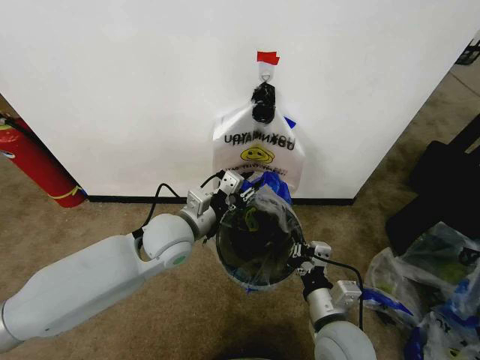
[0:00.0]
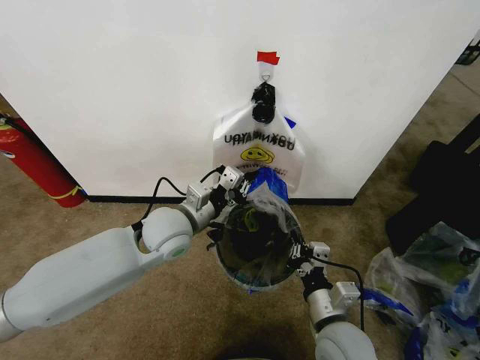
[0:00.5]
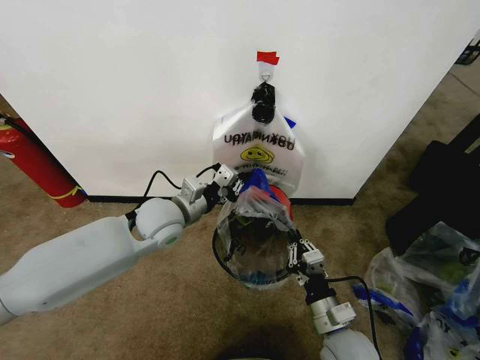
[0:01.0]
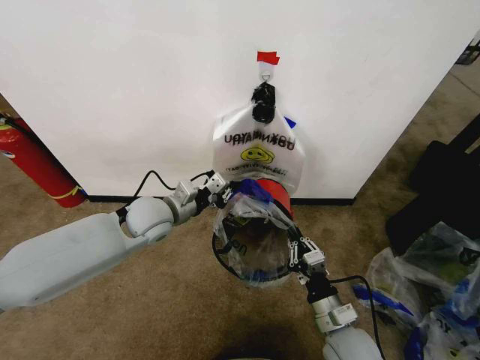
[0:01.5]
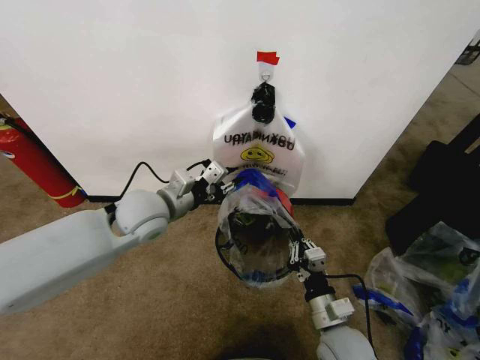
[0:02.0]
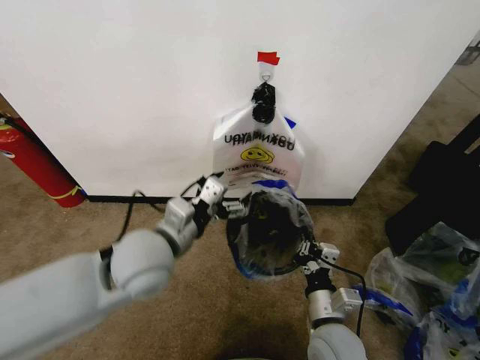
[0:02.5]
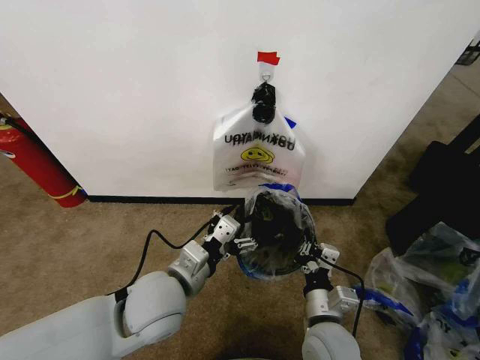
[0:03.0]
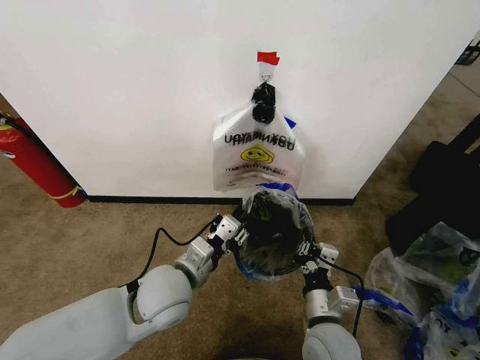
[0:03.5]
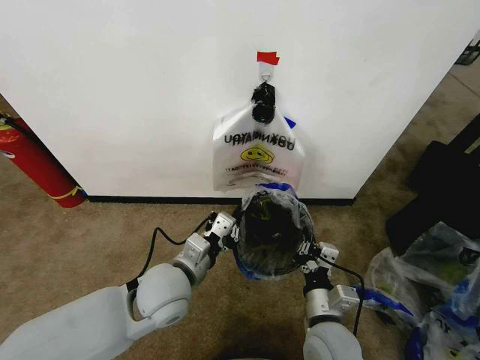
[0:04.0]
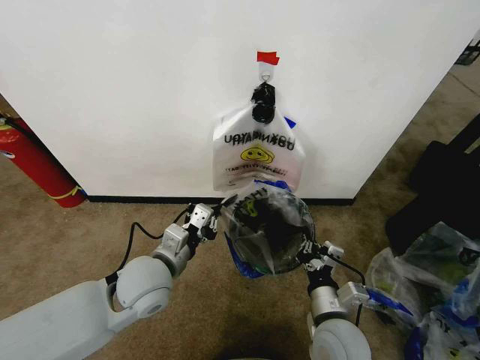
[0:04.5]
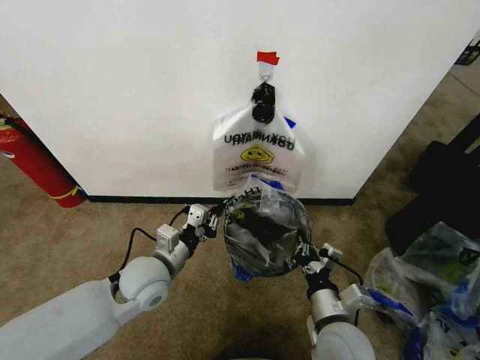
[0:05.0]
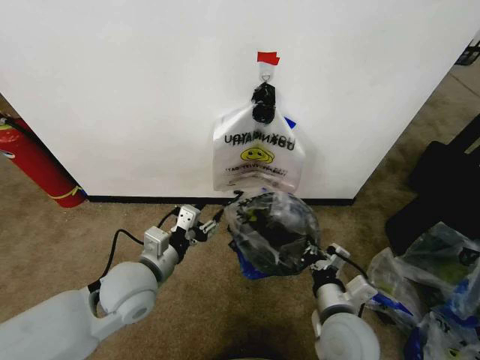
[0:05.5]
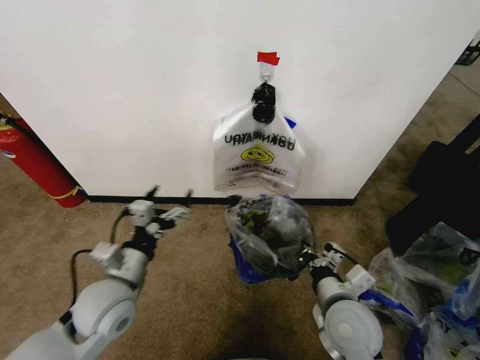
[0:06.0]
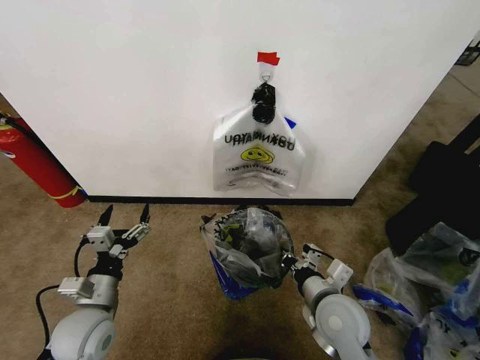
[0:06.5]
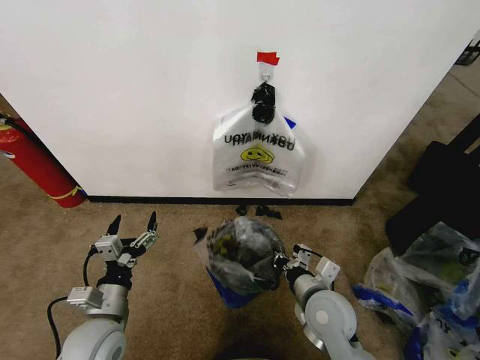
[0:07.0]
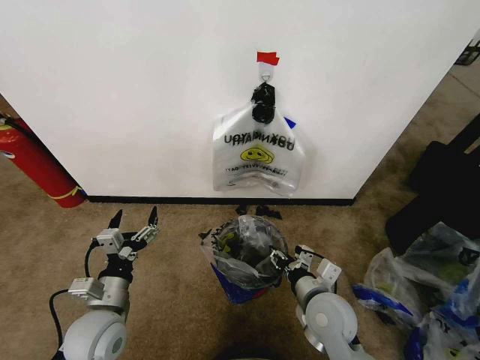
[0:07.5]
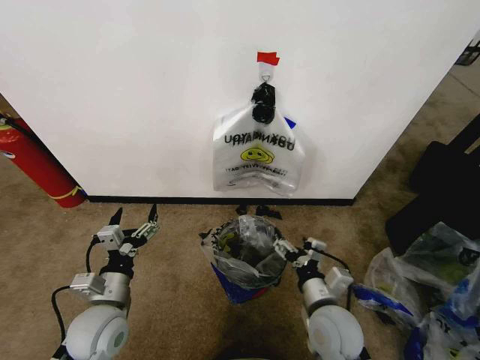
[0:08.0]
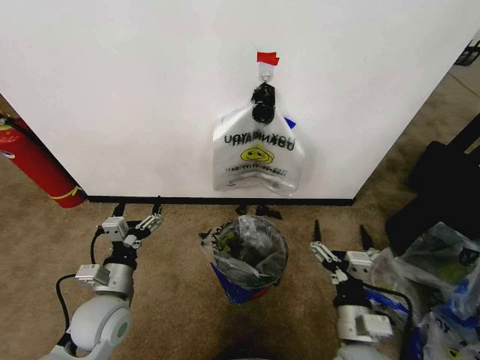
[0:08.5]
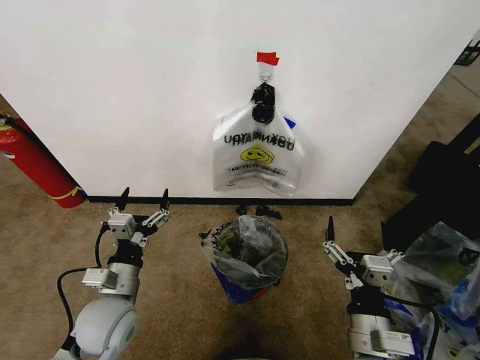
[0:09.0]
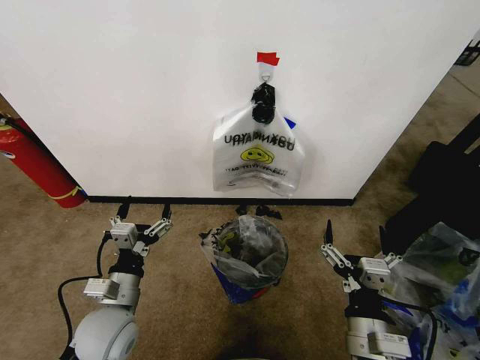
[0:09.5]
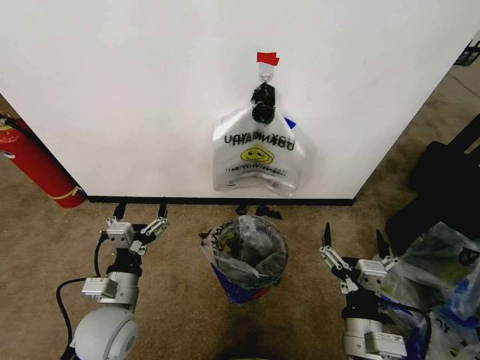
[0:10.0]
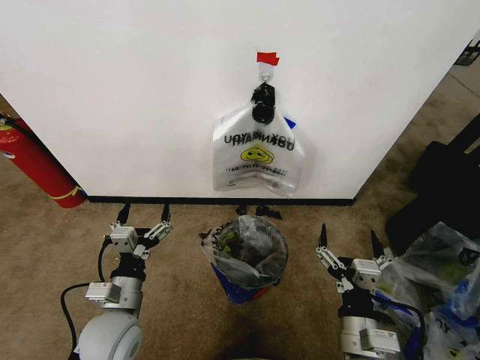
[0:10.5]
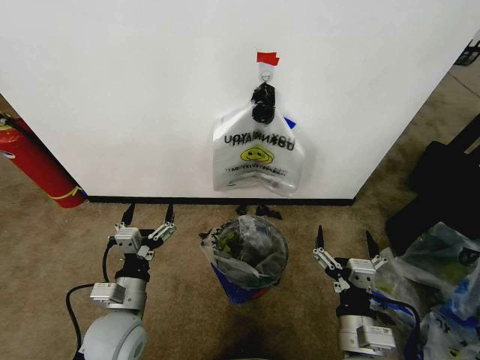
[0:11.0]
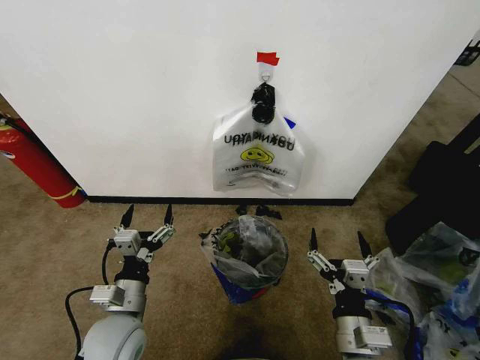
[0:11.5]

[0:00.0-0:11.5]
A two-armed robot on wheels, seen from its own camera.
Task of the whole recording: Pick up the garbage bag from the wall and place it over the trash bin.
0:00.0 to 0:02.0: The left gripper shifts about 5 cm to the left, and closes, then reopens. Meanwhile the right gripper shifts some 5 cm downward.
0:02.0 to 0:04.0: The left gripper shifts about 15 cm backward, downward and to the right, and closes its fingers.
0:04.0 to 0:06.0: The right gripper moves roughly 5 cm, while the left gripper travels to the left by approximately 10 cm, and opens up.
0:06.0 to 0:07.5: The right gripper opens its fingers. The left gripper goes roughly 5 cm downward.
0:07.5 to 0:09.5: The right gripper moves backward, roughly 10 cm, and opens up.
0:09.5 to 0:11.5: There are only small adjustments of the grippers.

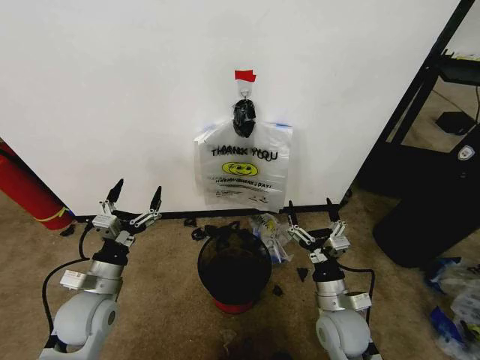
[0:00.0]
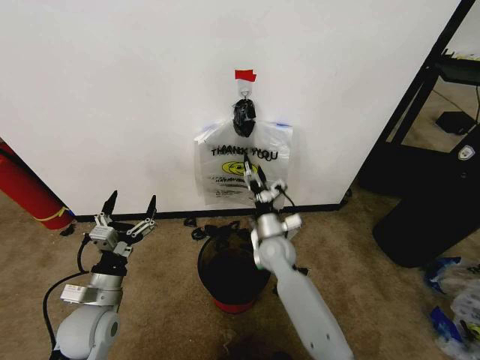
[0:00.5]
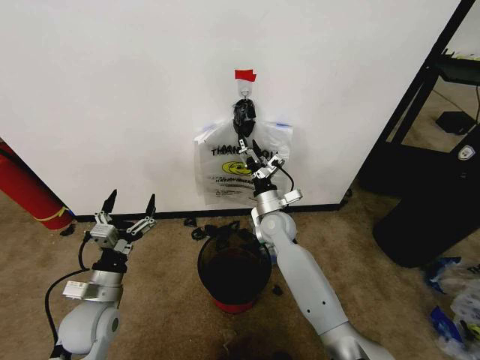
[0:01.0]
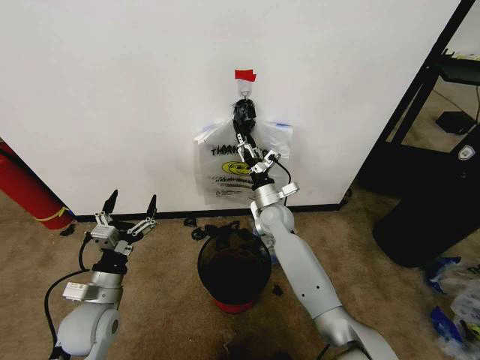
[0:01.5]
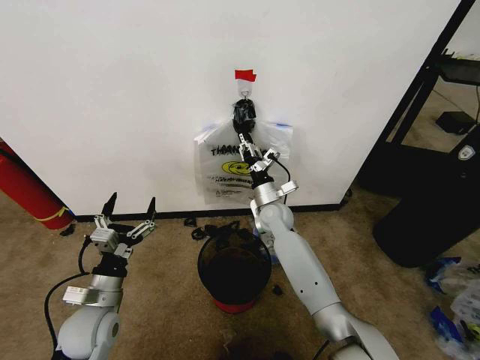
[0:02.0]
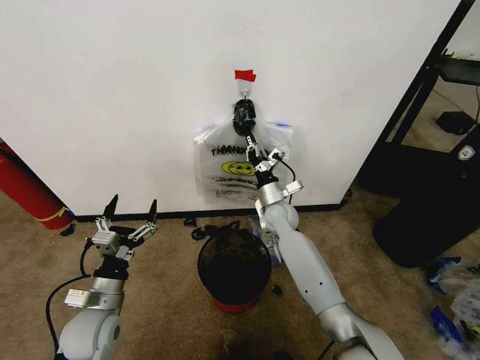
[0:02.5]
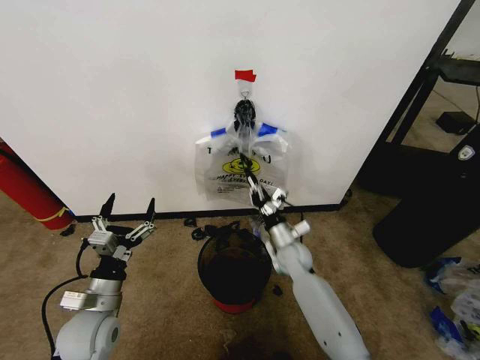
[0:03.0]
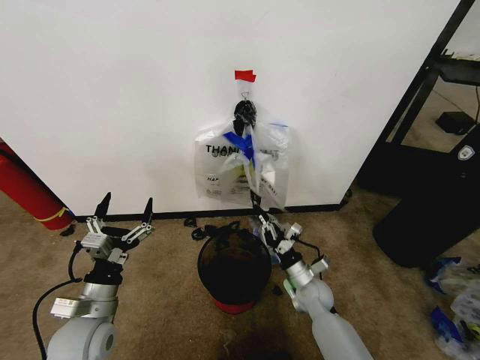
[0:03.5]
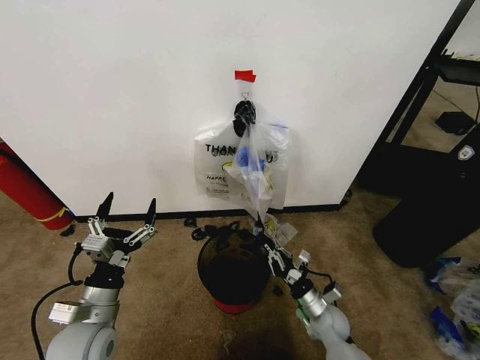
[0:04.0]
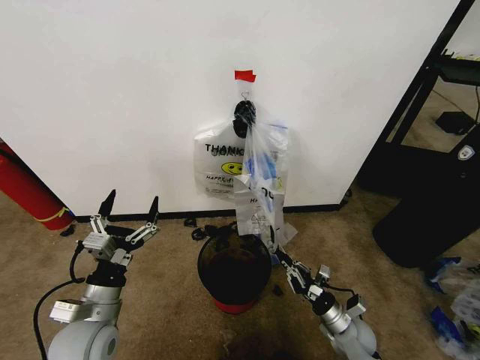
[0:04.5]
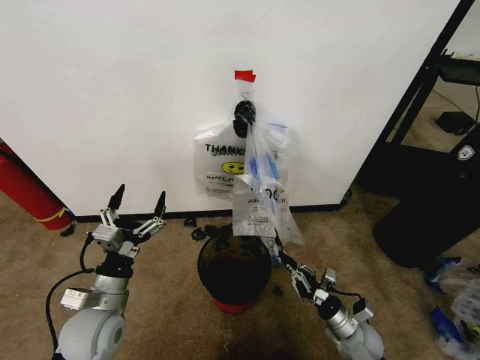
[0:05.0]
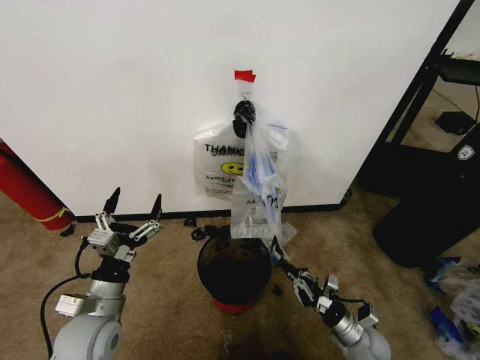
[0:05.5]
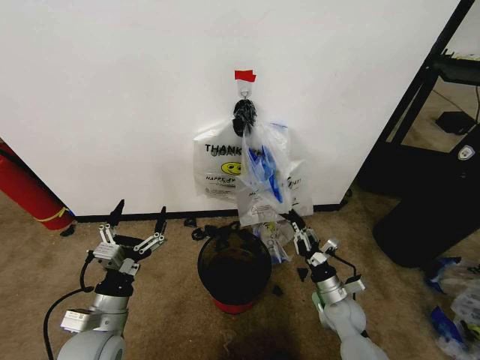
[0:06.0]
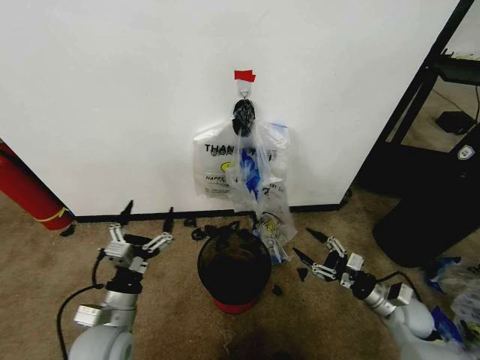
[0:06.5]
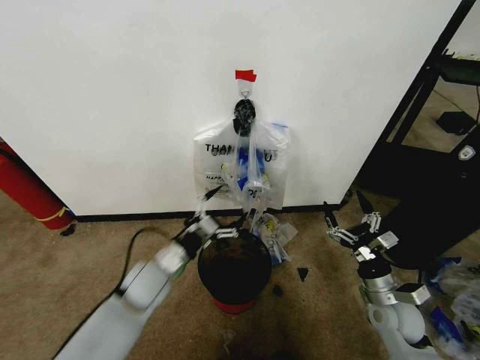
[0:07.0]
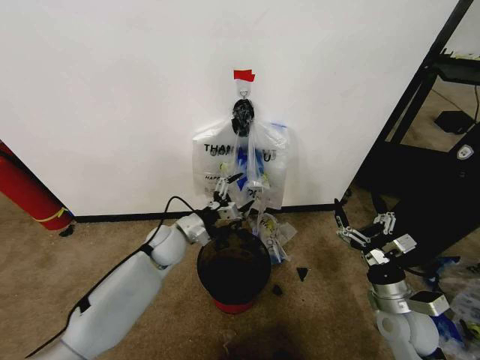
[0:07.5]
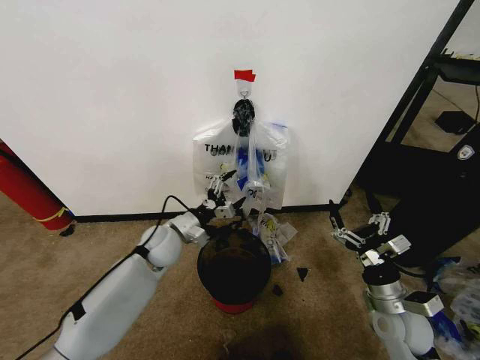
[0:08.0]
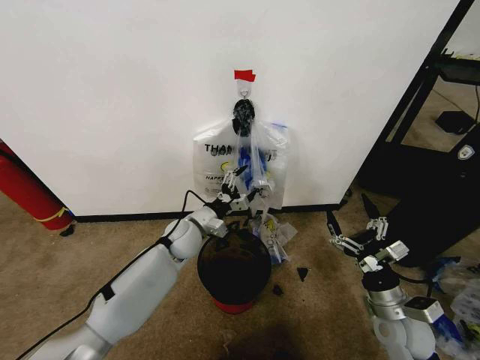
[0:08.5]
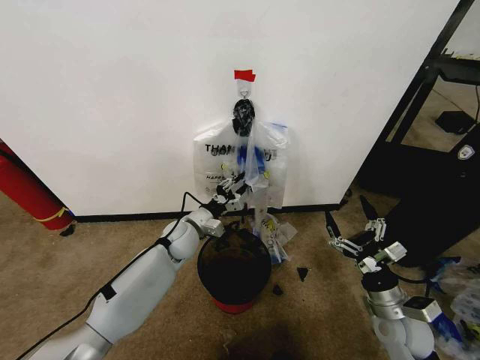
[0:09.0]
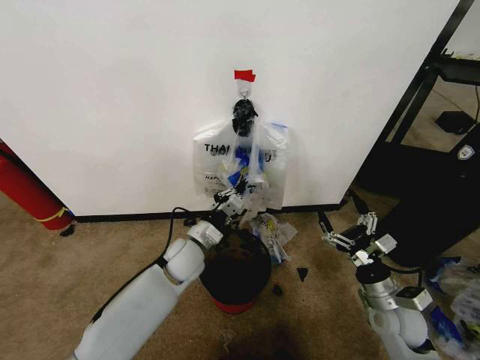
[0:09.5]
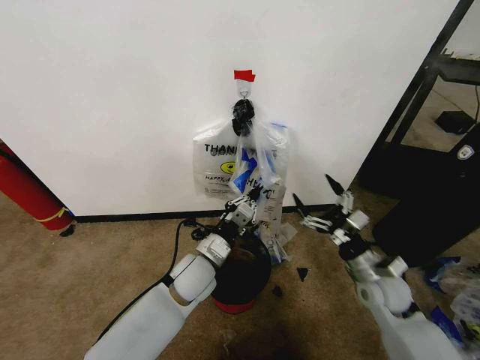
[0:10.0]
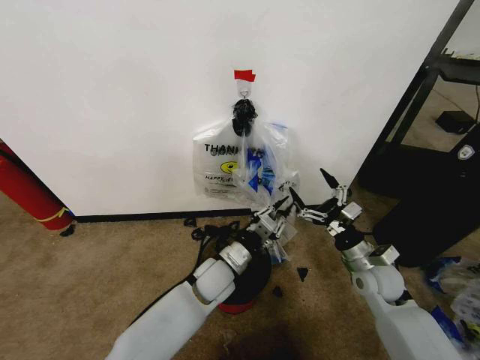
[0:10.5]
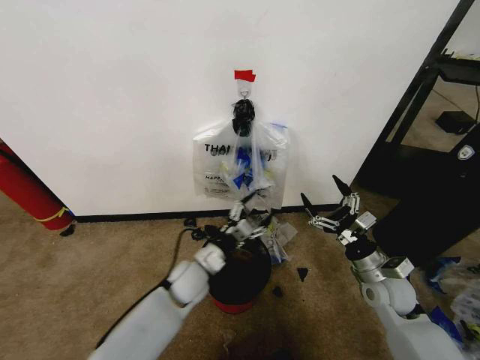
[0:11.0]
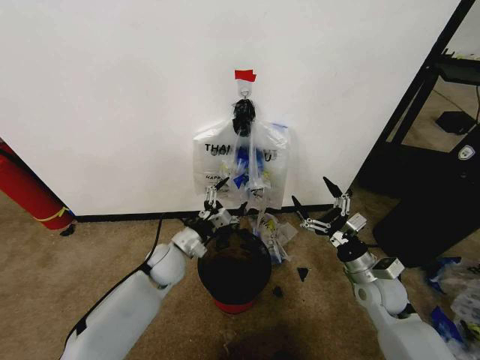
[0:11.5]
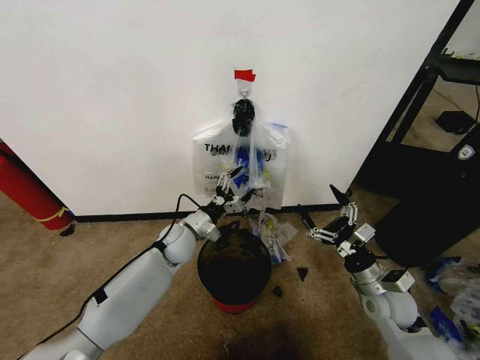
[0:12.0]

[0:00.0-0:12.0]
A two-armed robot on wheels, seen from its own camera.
Task of the whole recording: Pick up the garbage bag from the wall and place it over the trash bin.
0:02.0 to 0:04.0: The right gripper shifts roughly 30 cm backward, downward and to the right, and closes its fingers.
0:06.0 to 0:08.0: The right gripper moves upward, to the right and backward, approximately 15 cm, and opens; the left gripper goes about 20 cm forward.
0:08.0 to 0:10.0: The right gripper shifts some 5 cm forward; the left gripper is displaced to the right and backward by roughly 10 cm, and closes up.
0:10.0 to 0:12.0: The left gripper travels forward and to the left by some 10 cm, and opens up.

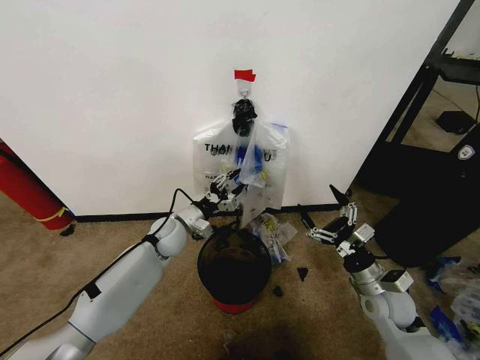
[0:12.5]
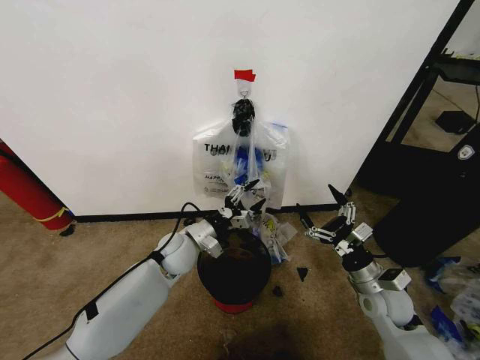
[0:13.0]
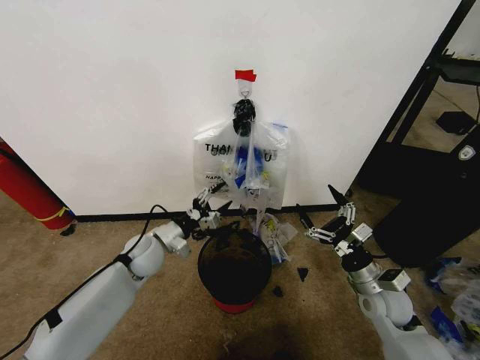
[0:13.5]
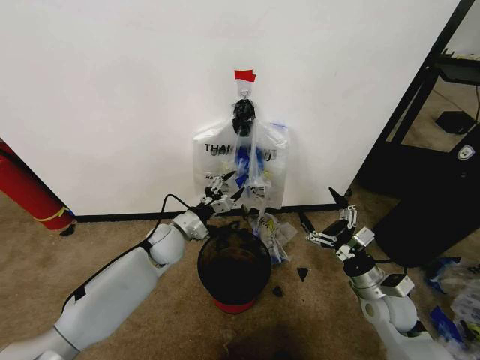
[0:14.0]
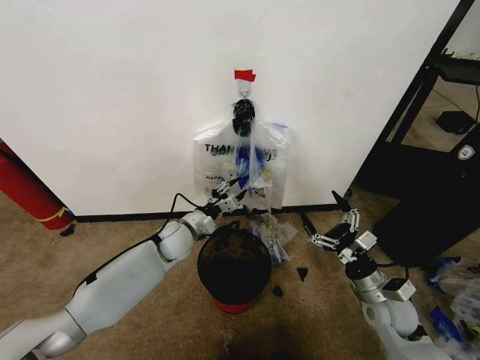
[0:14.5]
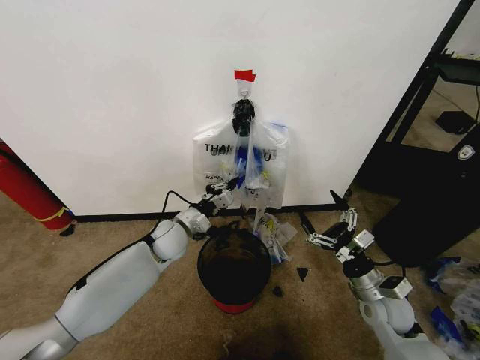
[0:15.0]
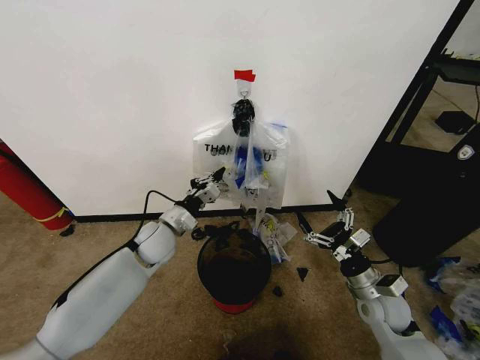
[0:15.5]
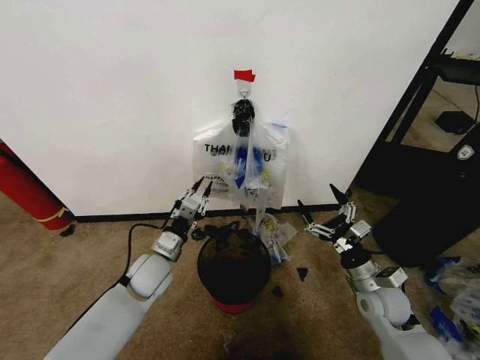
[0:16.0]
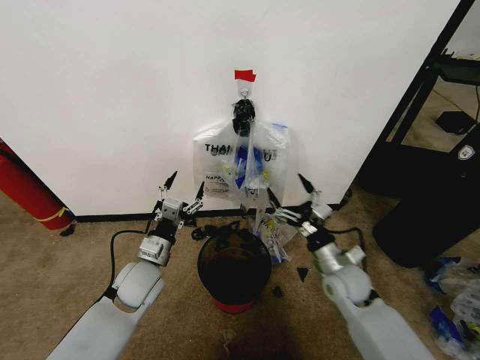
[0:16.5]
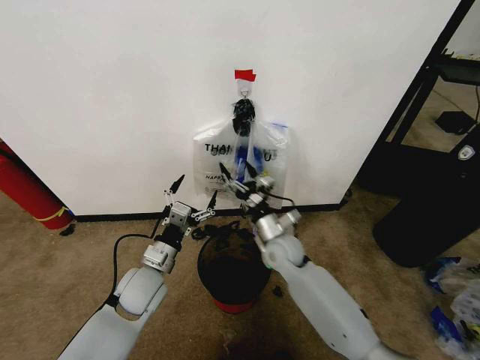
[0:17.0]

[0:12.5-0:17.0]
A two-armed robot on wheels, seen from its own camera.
Task of the whole recording: Pick up the garbage bag from the wall and place it over the trash bin.
0:12.5 to 0:14.5: The left gripper moves roughly 5 cm to the left and comes back.
0:14.5 to 0:17.0: The left gripper is displaced backward by about 15 cm, and opens. The right gripper shifts roughly 25 cm to the left and forward.
